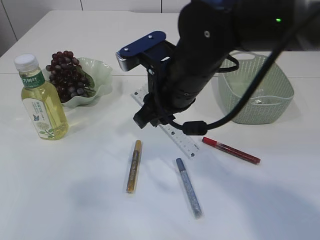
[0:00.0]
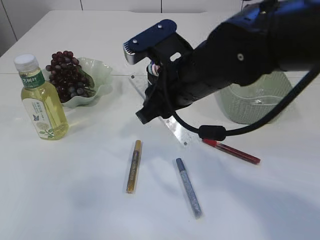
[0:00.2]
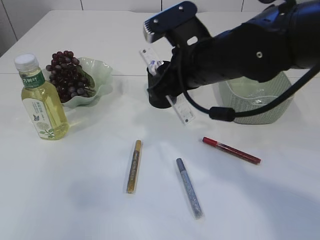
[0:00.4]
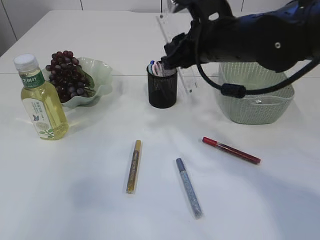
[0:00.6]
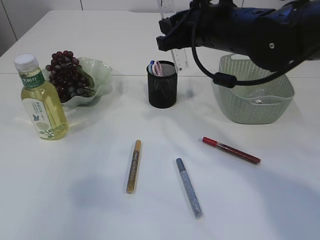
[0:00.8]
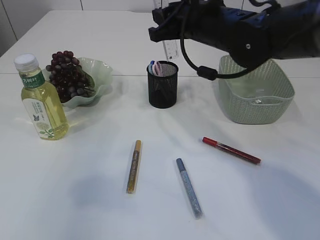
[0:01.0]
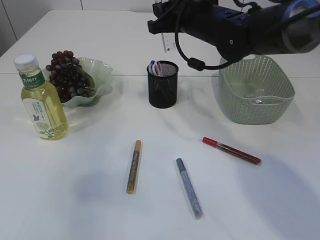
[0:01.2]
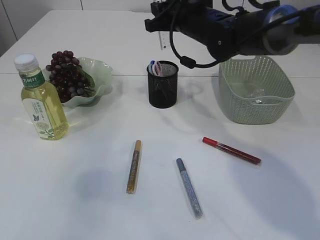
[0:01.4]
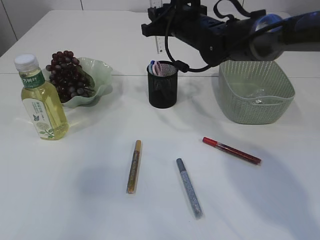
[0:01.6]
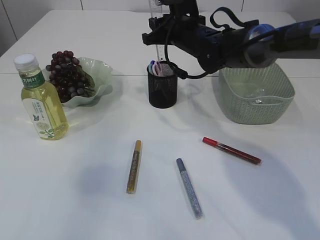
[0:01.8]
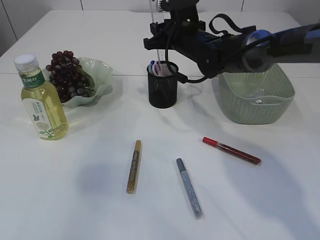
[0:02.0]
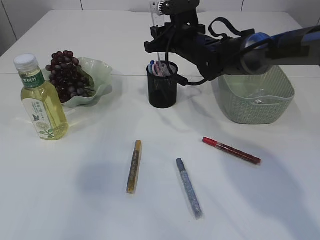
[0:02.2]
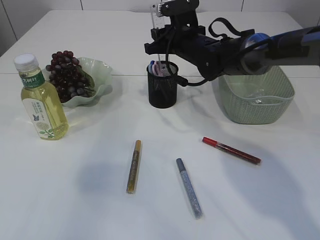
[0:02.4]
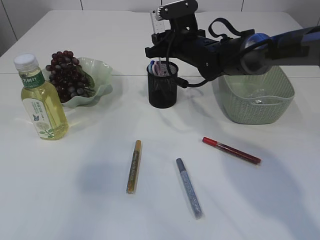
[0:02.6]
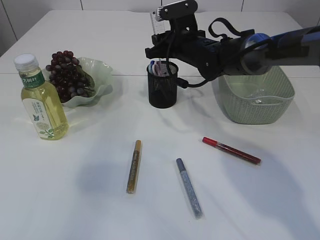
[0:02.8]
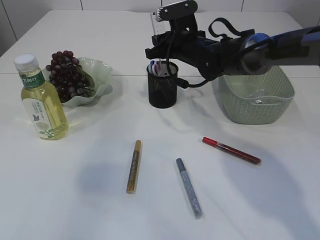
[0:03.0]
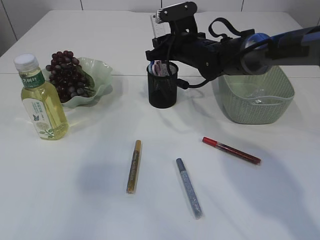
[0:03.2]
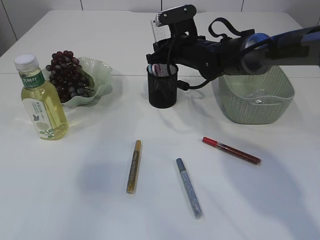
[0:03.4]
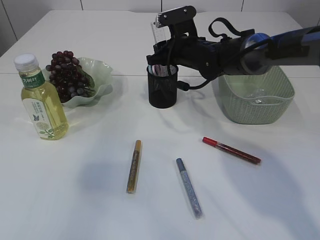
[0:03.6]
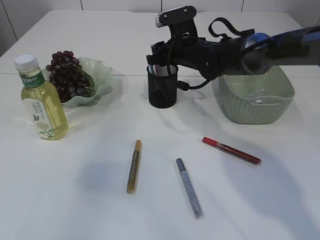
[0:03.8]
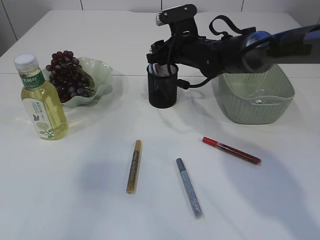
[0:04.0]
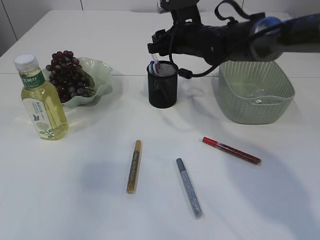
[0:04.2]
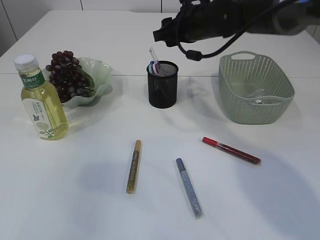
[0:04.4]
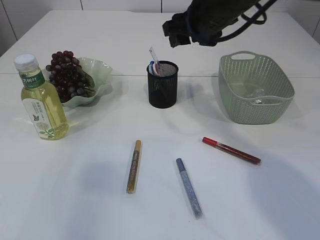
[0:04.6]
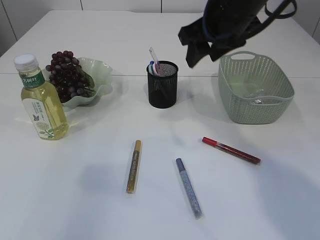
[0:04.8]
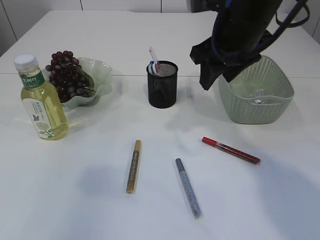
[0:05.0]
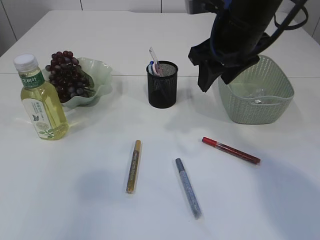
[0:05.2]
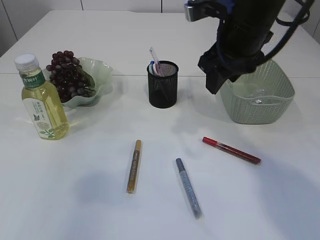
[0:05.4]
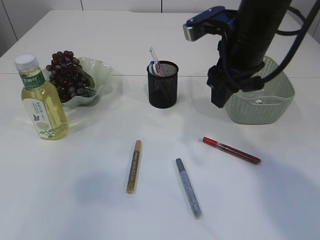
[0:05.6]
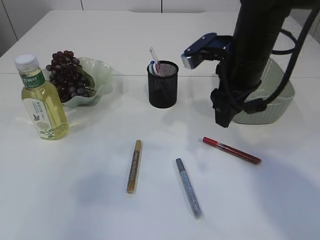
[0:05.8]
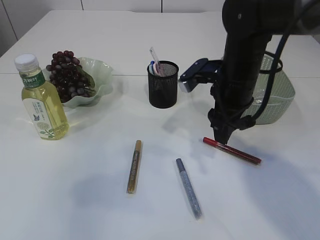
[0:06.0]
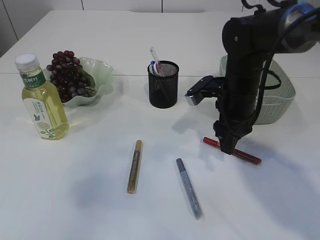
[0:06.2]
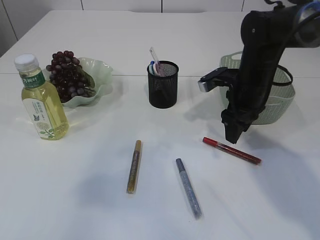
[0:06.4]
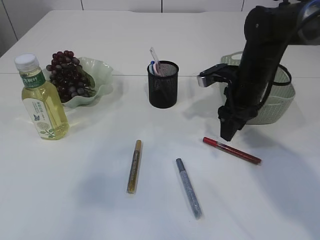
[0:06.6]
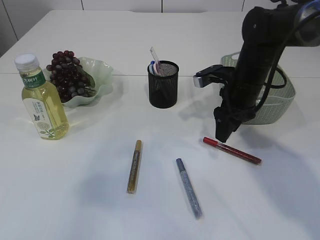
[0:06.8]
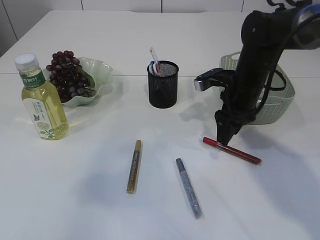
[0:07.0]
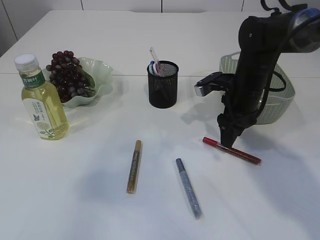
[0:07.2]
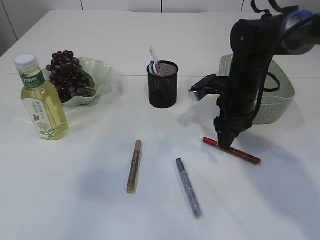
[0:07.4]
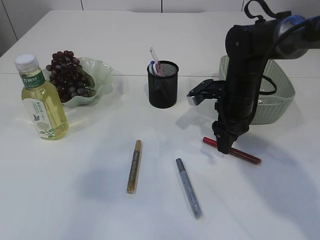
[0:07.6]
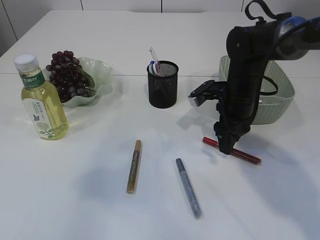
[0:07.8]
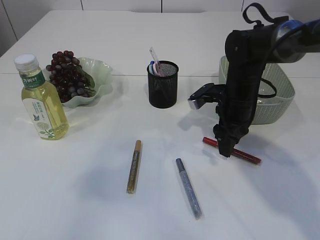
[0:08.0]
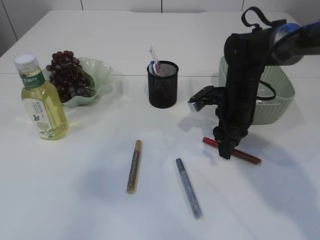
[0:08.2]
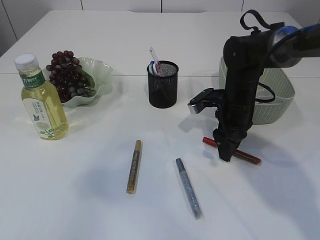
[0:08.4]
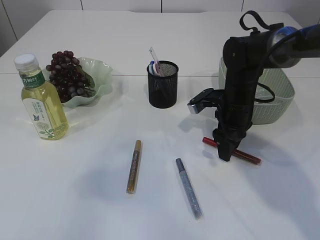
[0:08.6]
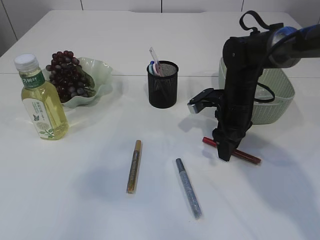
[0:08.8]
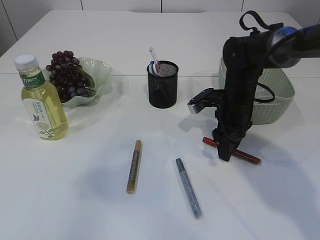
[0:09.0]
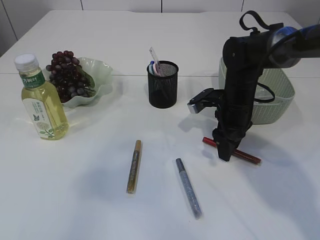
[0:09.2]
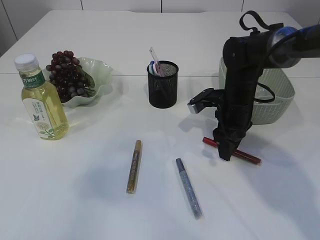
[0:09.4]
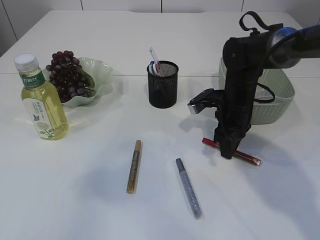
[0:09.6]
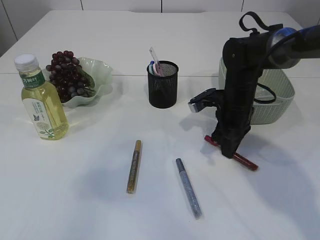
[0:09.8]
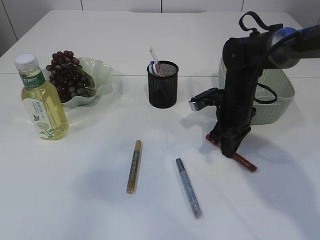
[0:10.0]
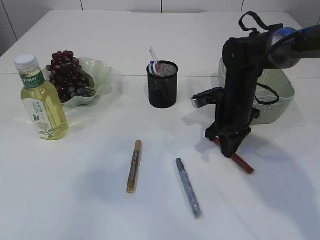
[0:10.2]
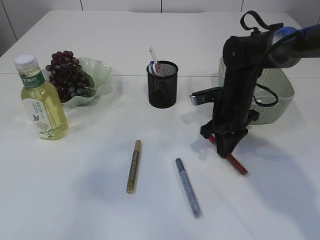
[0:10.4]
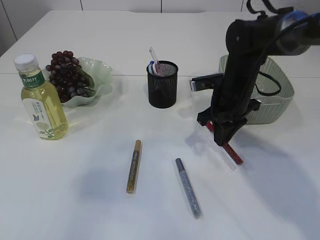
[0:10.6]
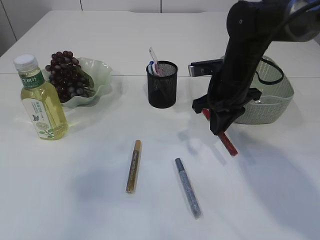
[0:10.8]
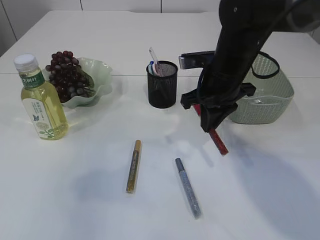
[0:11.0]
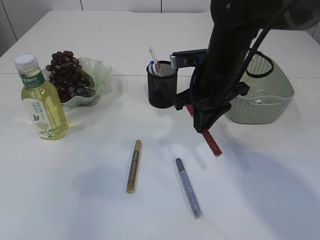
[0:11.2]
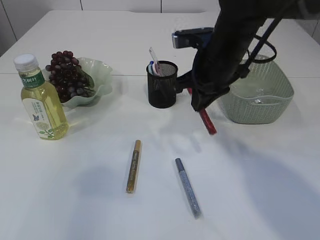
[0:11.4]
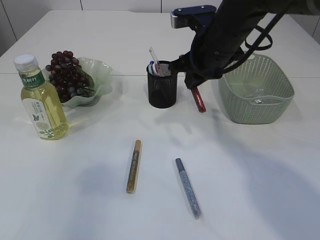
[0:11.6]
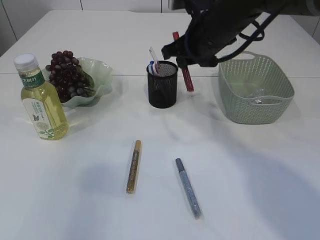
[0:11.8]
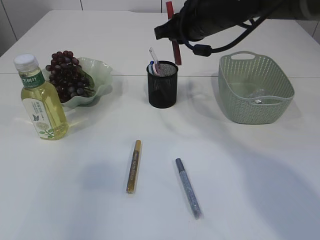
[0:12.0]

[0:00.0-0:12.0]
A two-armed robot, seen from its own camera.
Step, 0:00.0 to 0:04.2: Place the ruler into the pen holder.
Step, 0:04.4 to 0:11.0: pick up the red glue.
0:00.0 to 0:01.6: The right gripper shifts some 15 cm forward.
0:01.6 to 0:03.0: There are only small adjustments of the grippers.
0:03.0 to 0:04.4: The right gripper is displaced upward by some 5 cm.
0:04.4 to 0:06.0: The right gripper is displaced backward by approximately 10 cm.
0:06.0 to 0:07.6: The right gripper shifts some 5 cm downward.
0:07.6 to 0:09.0: The grippers make only small movements.
0:09.0 to 0:10.4: The right gripper closes its fingers.
0:10.4 to 0:12.0: The right gripper travels upward and to the left by about 15 cm.

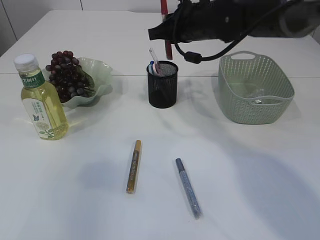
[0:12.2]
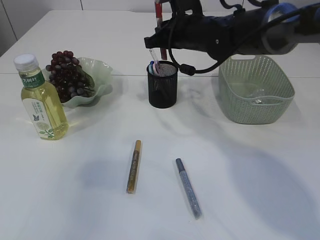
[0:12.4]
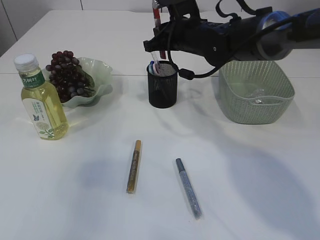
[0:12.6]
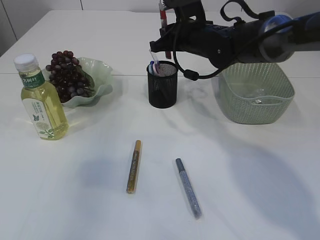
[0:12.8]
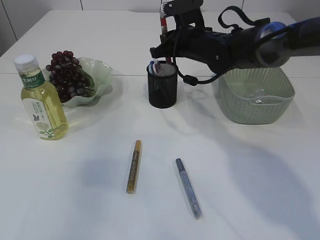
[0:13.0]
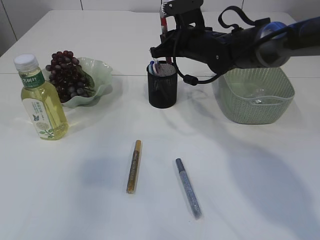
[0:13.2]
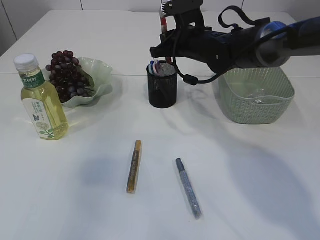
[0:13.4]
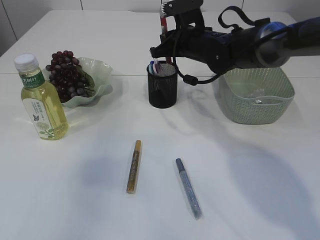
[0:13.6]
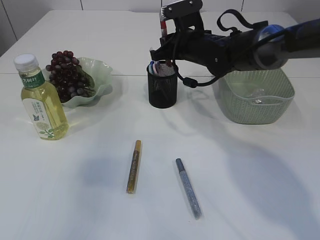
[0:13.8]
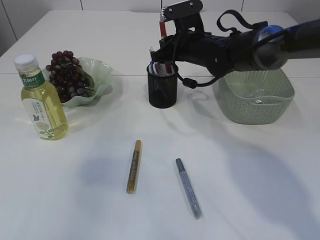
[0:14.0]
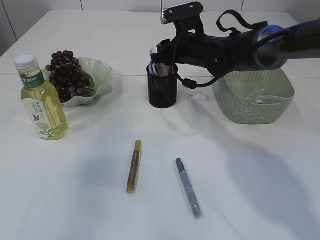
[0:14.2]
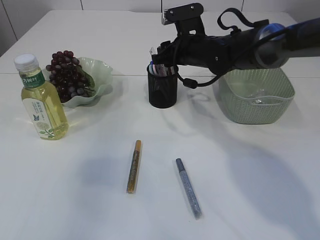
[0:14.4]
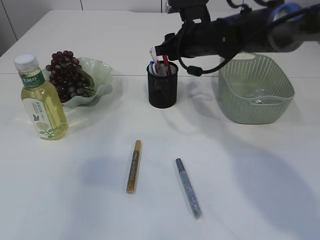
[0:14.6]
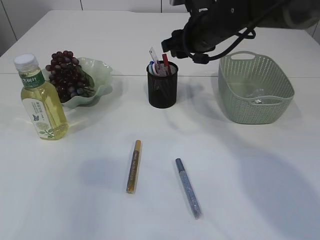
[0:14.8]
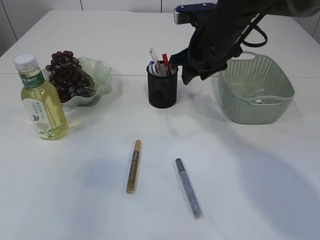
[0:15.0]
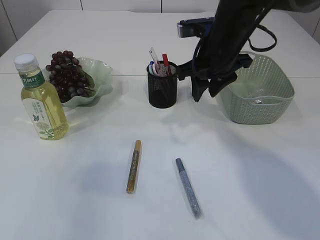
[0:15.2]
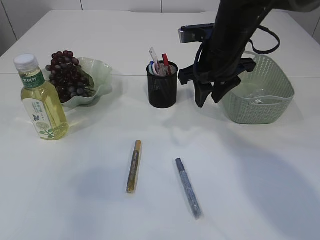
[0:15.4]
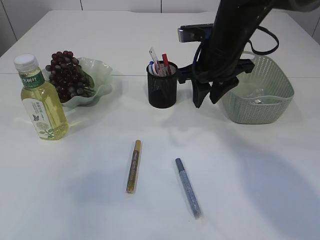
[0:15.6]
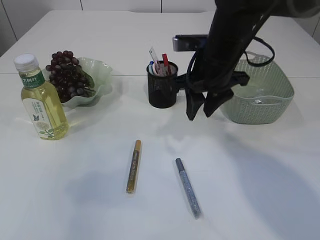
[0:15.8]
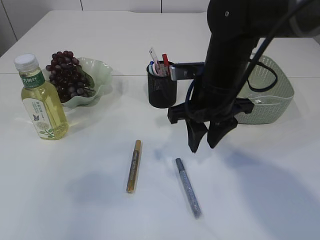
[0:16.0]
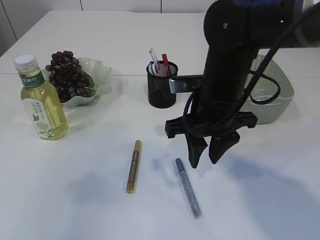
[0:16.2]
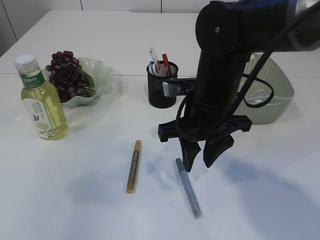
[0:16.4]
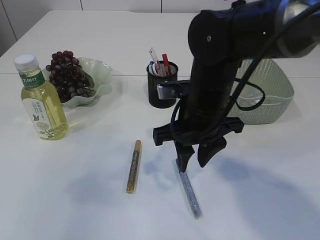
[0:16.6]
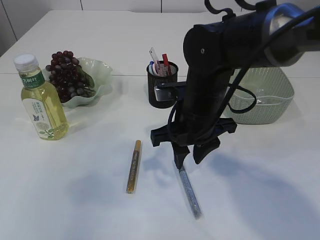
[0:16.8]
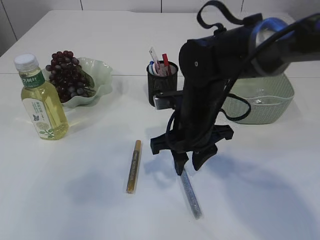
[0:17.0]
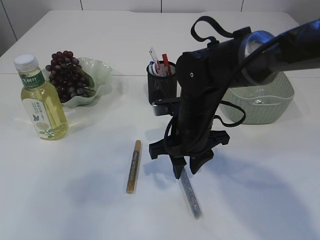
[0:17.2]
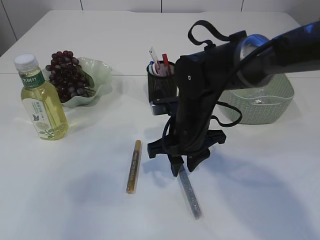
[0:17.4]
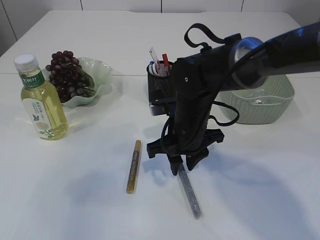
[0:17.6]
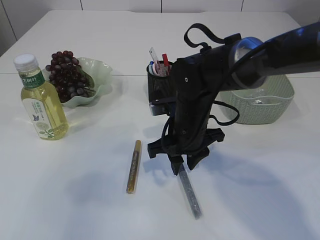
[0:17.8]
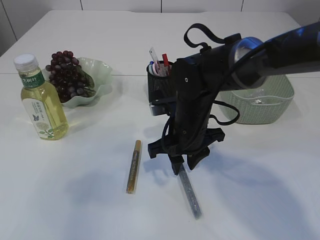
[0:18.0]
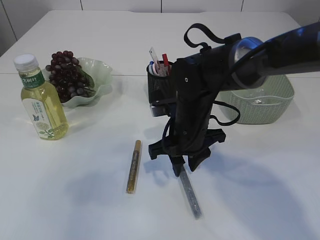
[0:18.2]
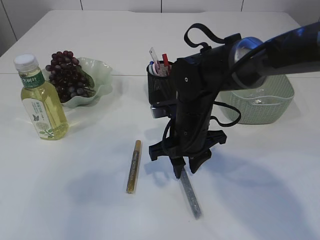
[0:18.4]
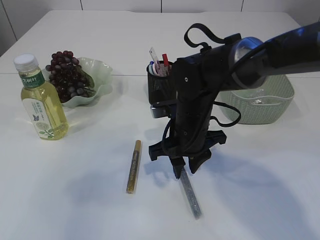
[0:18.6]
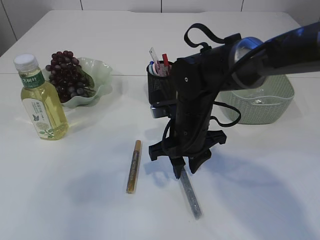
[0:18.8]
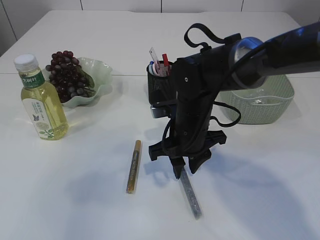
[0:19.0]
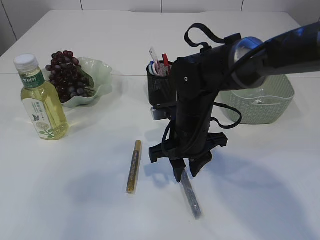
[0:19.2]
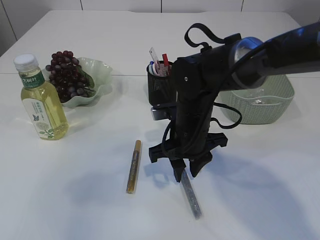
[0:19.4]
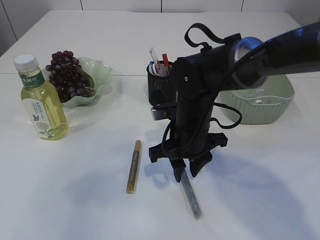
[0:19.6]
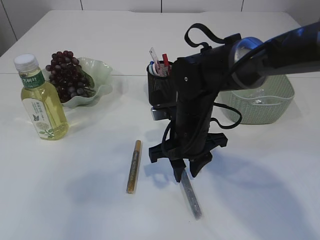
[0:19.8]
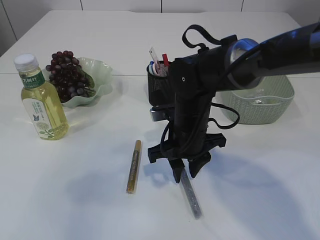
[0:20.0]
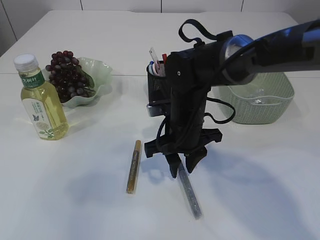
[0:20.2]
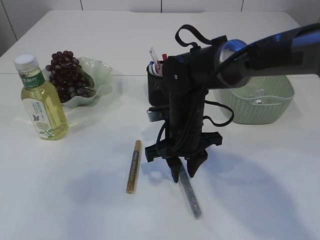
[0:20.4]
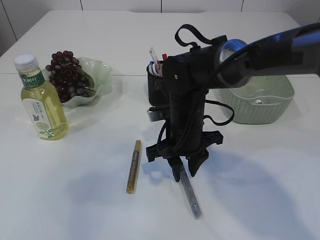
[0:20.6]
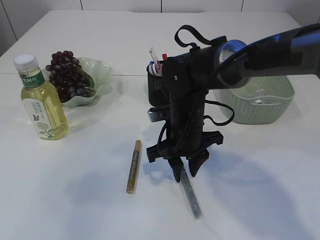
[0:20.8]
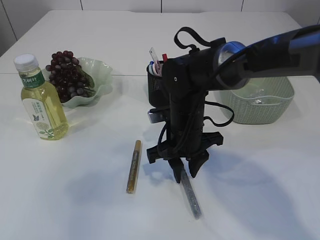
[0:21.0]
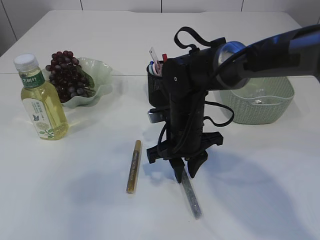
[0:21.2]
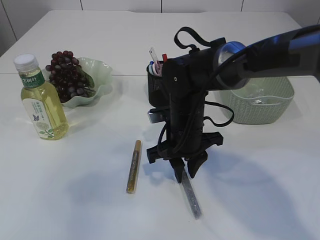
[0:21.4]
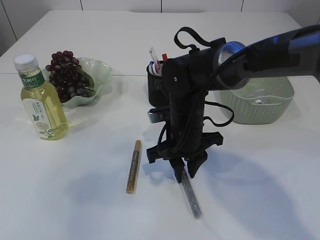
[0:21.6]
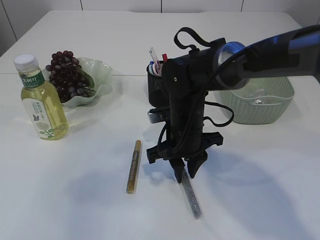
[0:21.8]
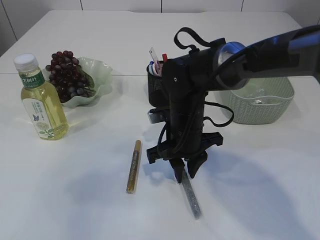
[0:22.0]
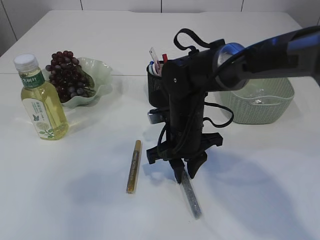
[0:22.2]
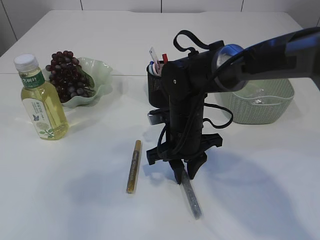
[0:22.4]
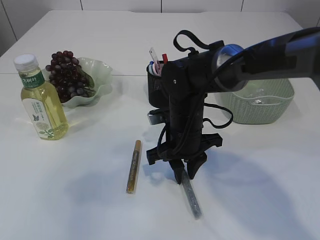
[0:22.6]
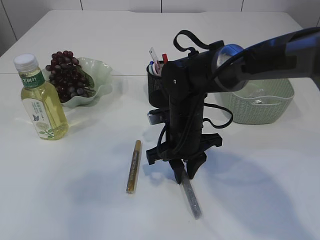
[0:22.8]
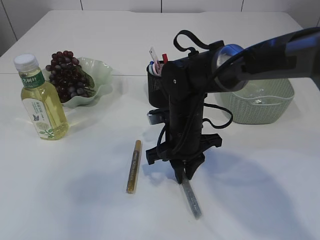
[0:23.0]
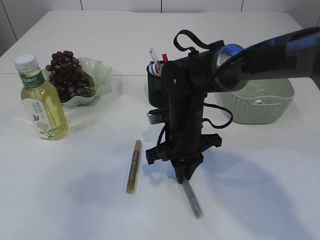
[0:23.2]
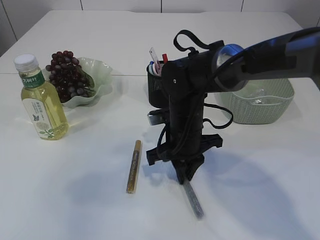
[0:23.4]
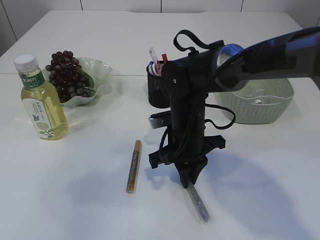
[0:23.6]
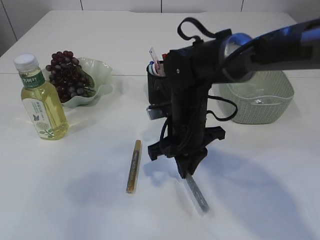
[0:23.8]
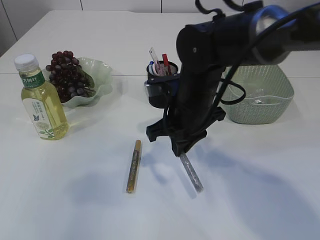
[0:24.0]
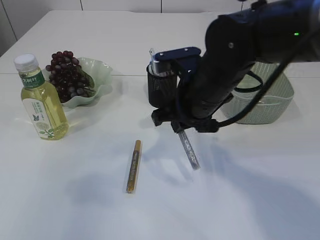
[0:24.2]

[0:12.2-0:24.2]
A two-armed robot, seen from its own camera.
Step, 0:12.2 to 0:14.8: place the red glue into the pen holder.
Step, 0:15.0 to 0:24.0: pick up the silver glue.
0:12.2 to 0:13.8: The right gripper is displaced downward by some 5 cm.
0:13.8 to 0:15.2: The right gripper moves backward, about 5 cm, and opens up.
0:15.2 to 0:16.6: The right gripper moves backward, roughly 10 cm.
0:16.6 to 0:18.2: The right gripper travels downward by roughly 5 cm.
0:18.2 to 0:19.8: Both grippers stay put.
0:19.8 to 0:21.2: The grippers move only a little.
0:21.2 to 0:22.6: Both grippers stay put.
0:22.6 to 0:24.2: The right gripper heads upward, covering about 10 cm.
